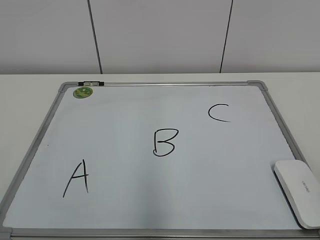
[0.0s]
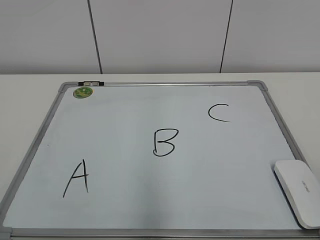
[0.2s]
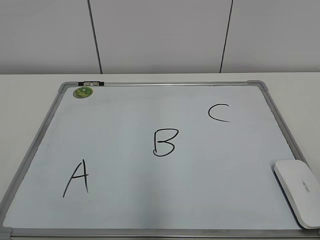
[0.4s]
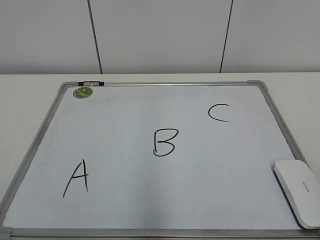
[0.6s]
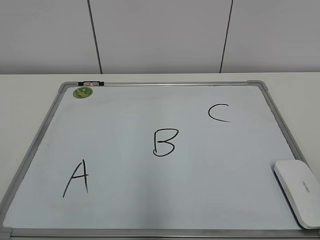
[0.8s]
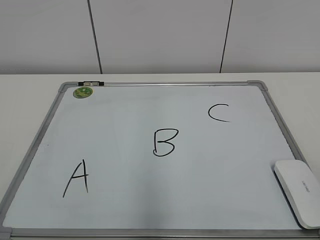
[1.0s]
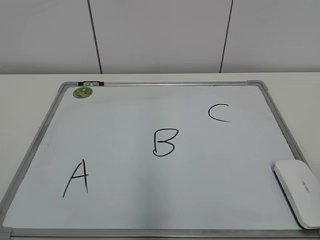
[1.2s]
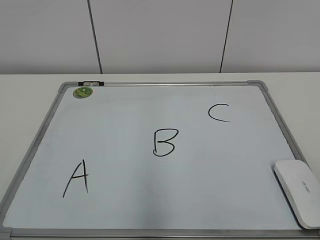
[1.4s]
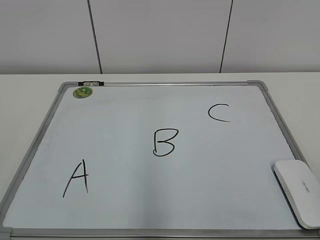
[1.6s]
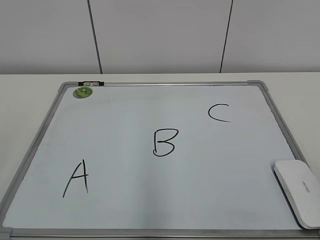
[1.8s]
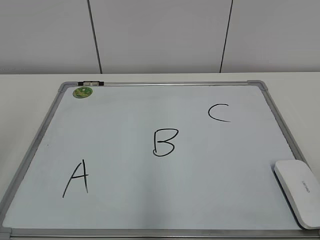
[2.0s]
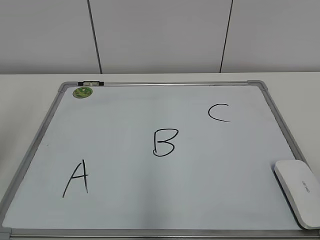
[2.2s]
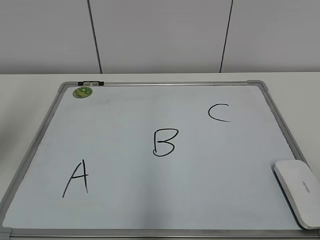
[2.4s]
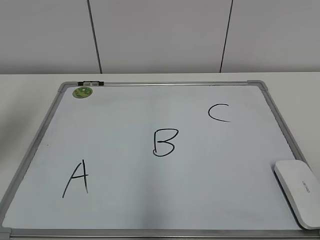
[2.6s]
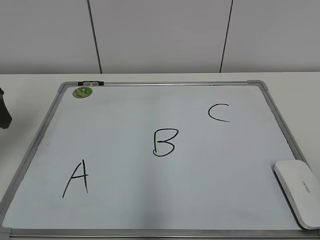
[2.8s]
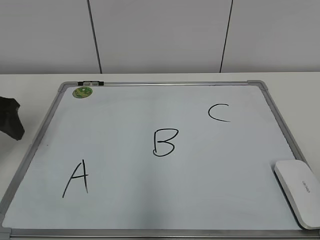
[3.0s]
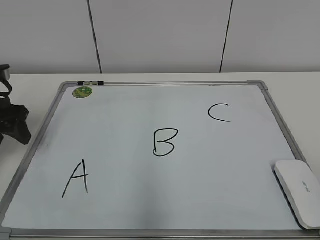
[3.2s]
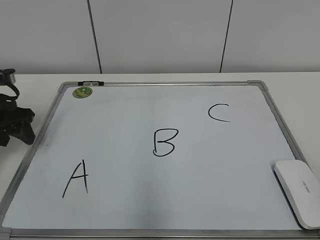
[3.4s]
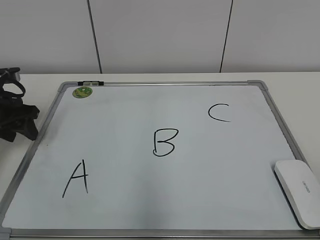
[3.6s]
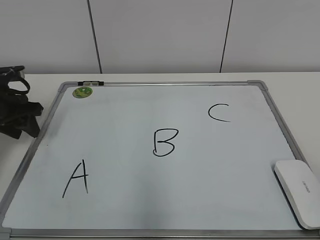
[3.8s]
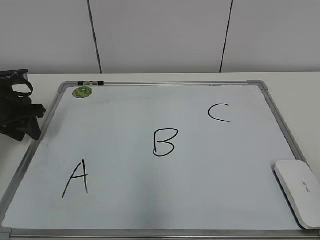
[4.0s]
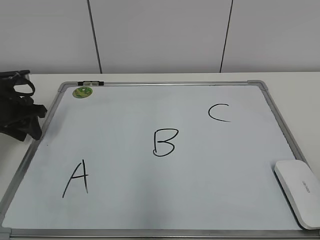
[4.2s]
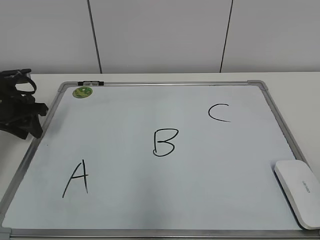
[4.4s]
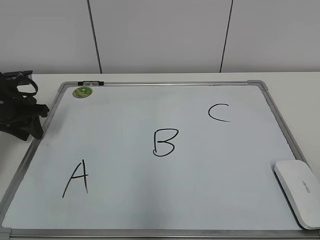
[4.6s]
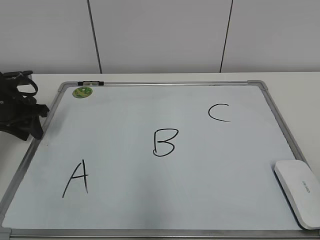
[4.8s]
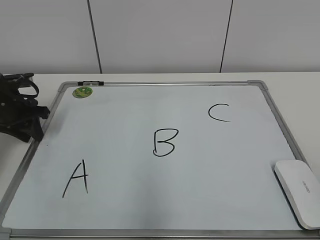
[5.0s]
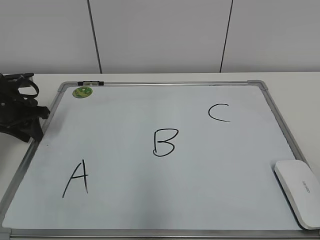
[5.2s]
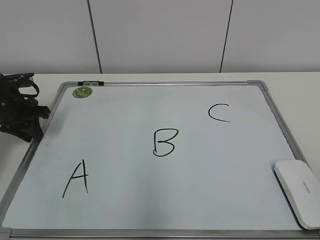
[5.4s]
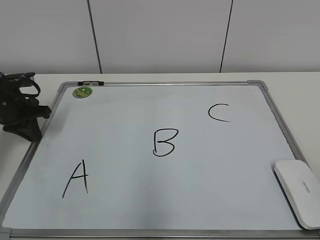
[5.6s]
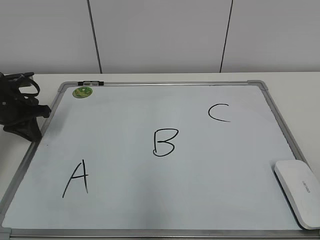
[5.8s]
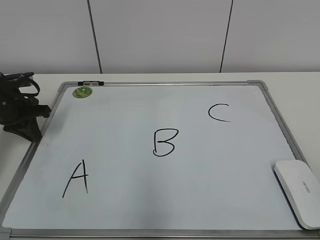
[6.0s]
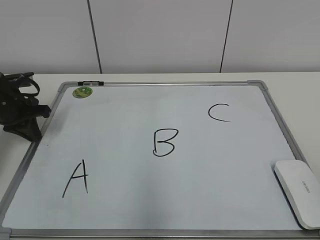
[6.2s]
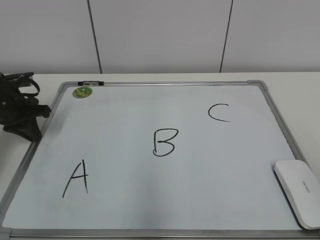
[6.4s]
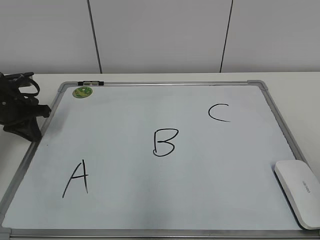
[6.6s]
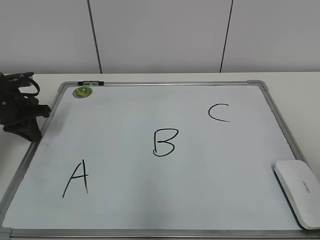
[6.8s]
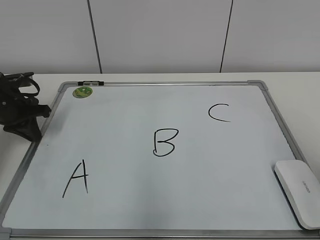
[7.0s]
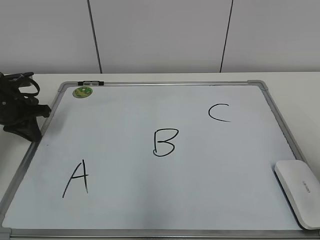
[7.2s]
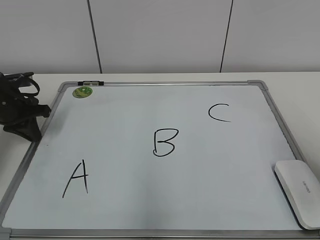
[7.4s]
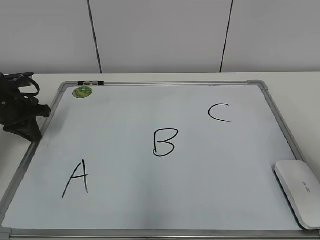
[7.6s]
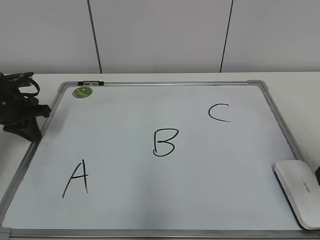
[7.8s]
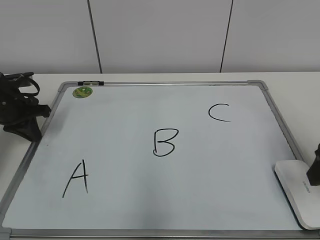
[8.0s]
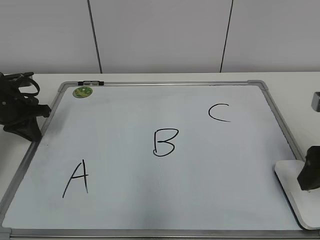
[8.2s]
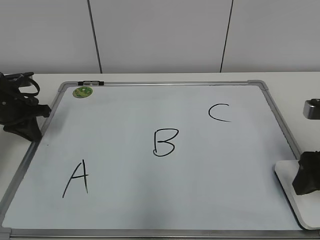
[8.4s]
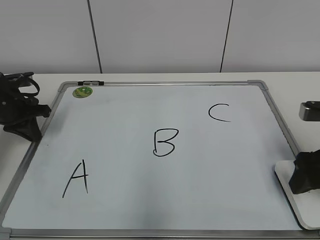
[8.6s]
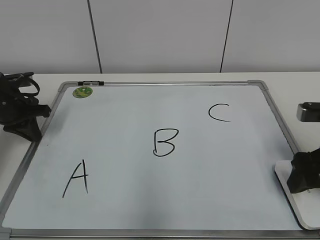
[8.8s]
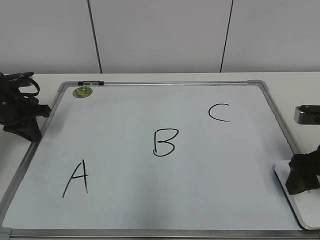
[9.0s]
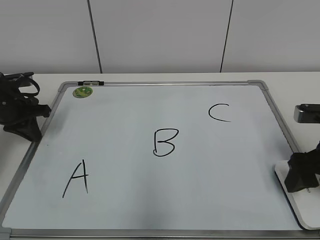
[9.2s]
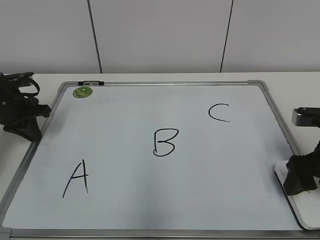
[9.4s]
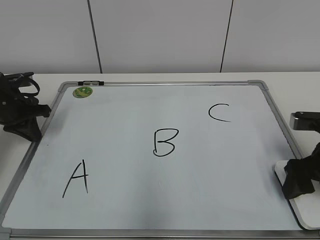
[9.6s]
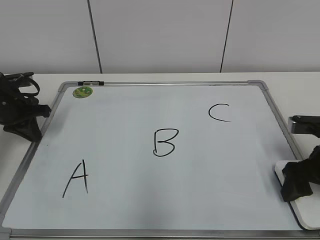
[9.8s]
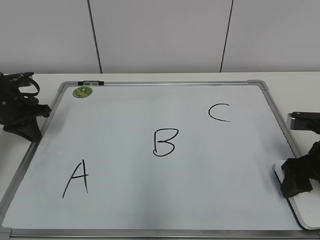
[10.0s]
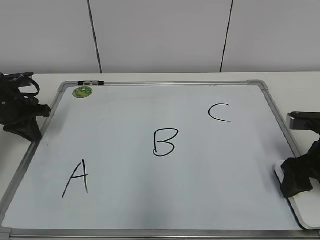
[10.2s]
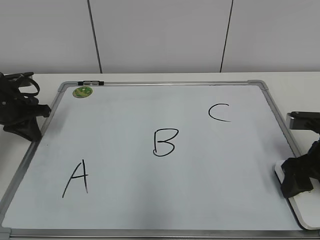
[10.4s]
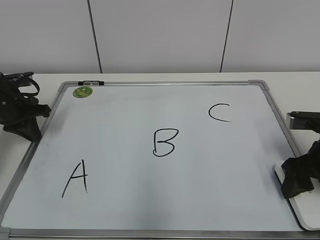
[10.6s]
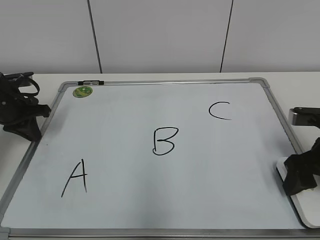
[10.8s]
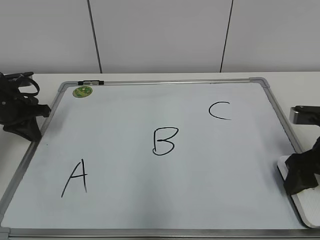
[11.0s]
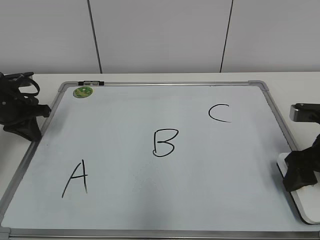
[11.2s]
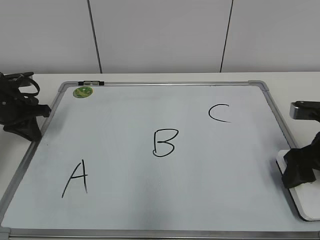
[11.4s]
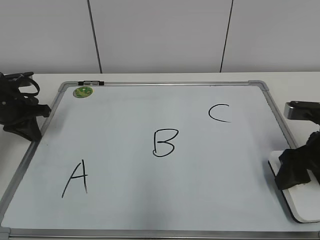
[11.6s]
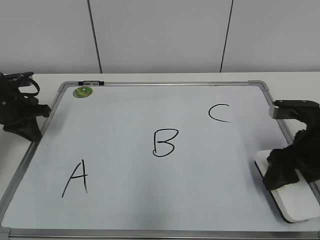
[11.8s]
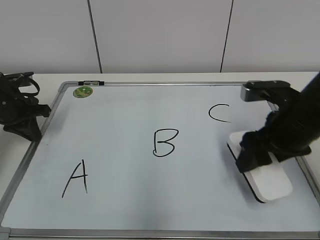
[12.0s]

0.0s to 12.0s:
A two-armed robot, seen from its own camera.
Task of the whole recording: pick up the eraser on the blackboard and erase the letter "B".
Step, 0.0s to 6.2s: Hold the drawing board steady with your left hand.
Step, 6.4s to 9.6s: Grab the eraser with your right hand.
1.6s to 3.0s: The left gripper shifts approximately 30 cm forward.
3.0s to 4.4s: The left gripper shifts about 10 cm forward and downward, and closes up.
4.4s to 6.0s: The left gripper closes.
6.0s to 7.6s: The right gripper is displaced forward by roughly 20 cm.
7.6s to 9.0s: The right gripper moves downward and forward, approximately 10 cm.
9.0s to 10.4s: The grippers stay close to where they were, moving slightly.
10.4s to 12.0s: The right gripper goes about 5 cm to the left.

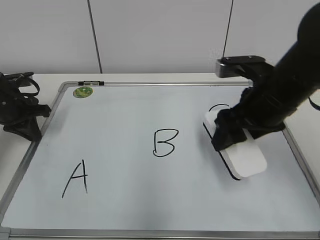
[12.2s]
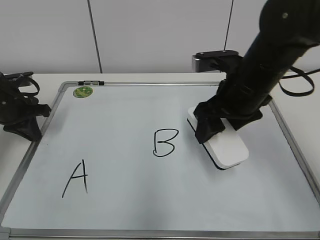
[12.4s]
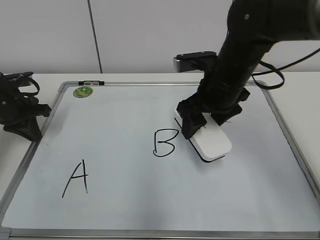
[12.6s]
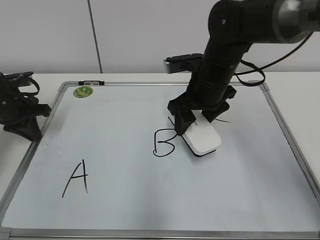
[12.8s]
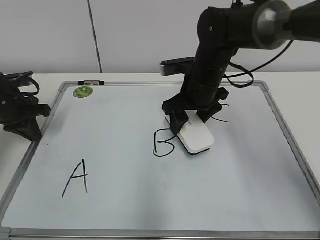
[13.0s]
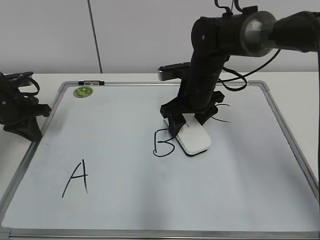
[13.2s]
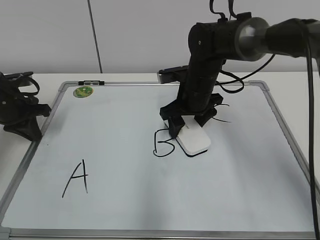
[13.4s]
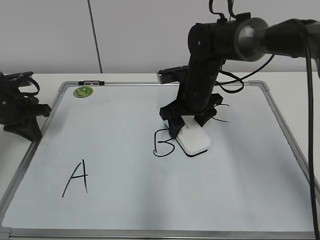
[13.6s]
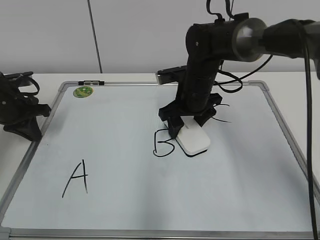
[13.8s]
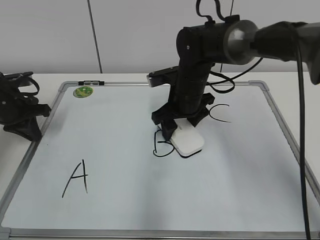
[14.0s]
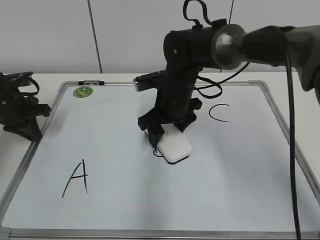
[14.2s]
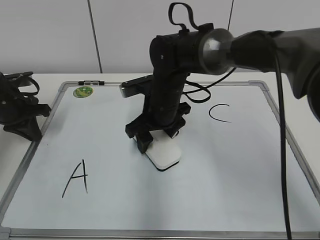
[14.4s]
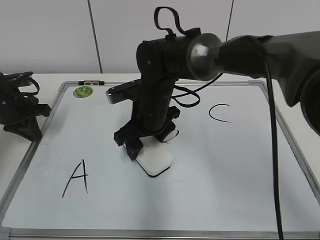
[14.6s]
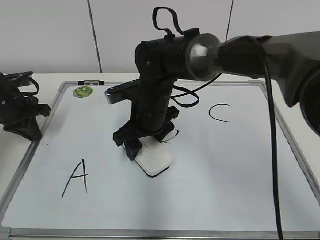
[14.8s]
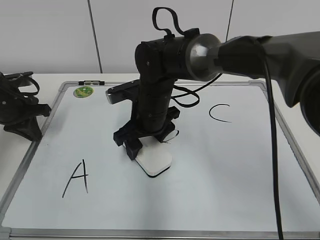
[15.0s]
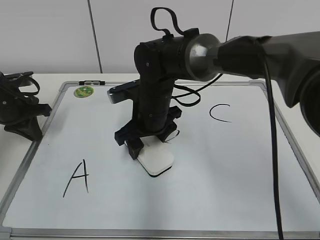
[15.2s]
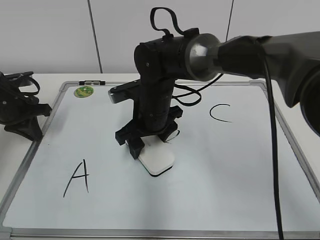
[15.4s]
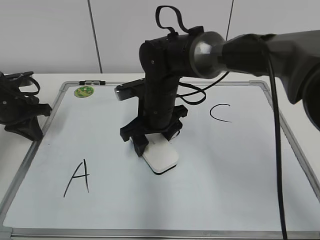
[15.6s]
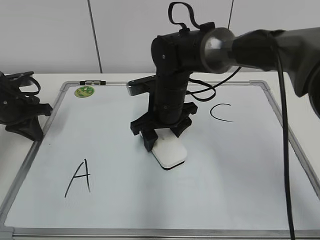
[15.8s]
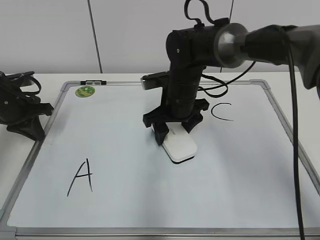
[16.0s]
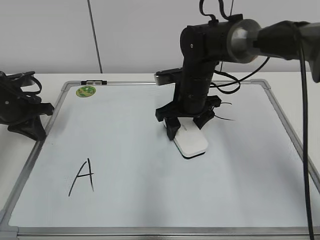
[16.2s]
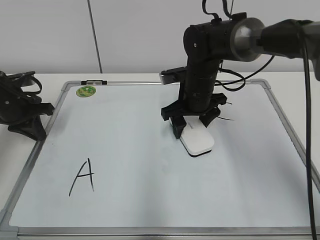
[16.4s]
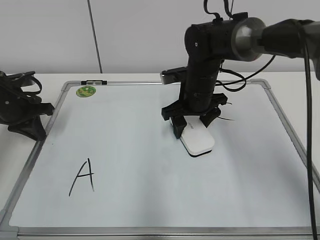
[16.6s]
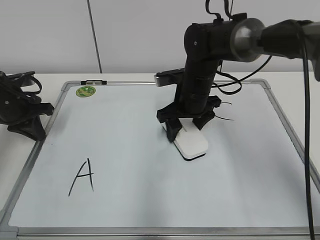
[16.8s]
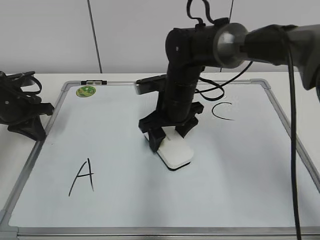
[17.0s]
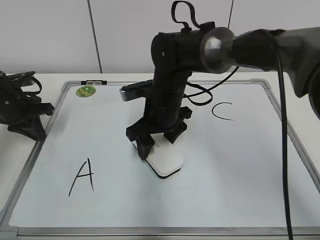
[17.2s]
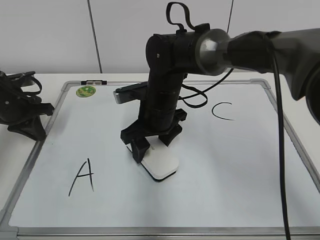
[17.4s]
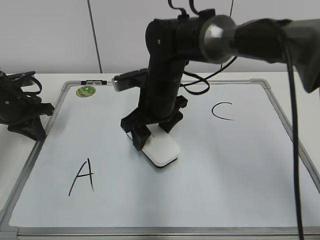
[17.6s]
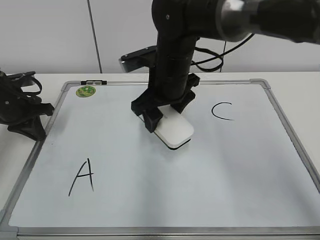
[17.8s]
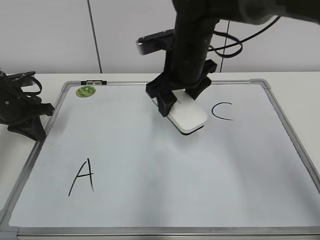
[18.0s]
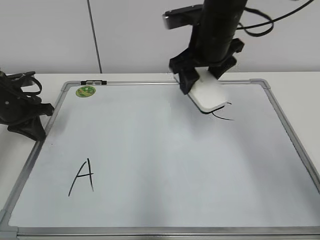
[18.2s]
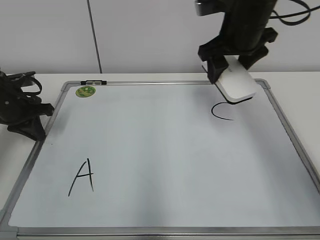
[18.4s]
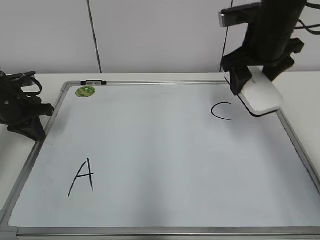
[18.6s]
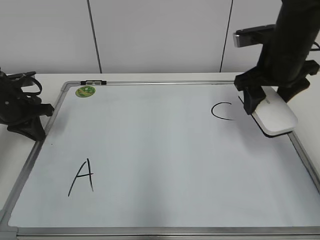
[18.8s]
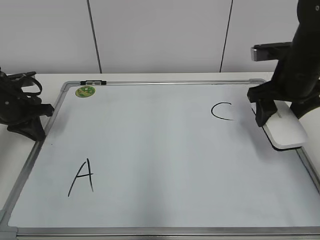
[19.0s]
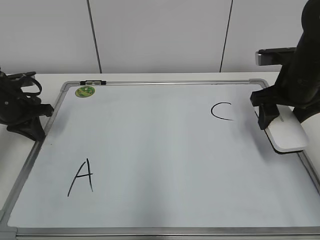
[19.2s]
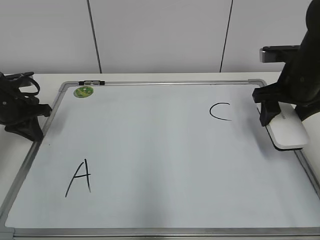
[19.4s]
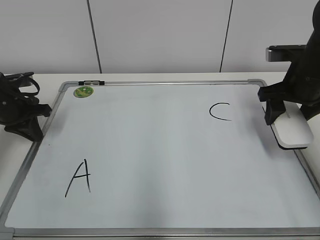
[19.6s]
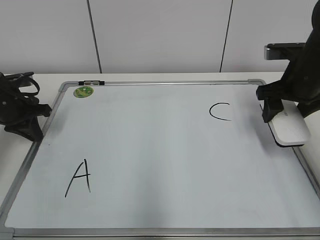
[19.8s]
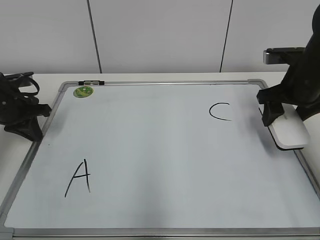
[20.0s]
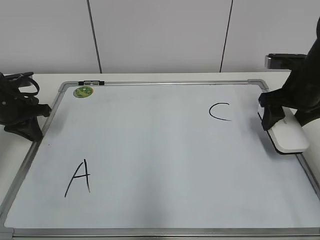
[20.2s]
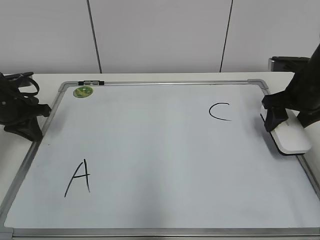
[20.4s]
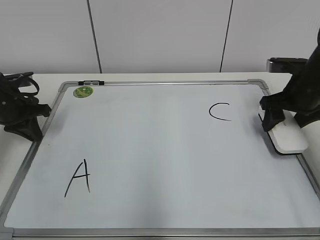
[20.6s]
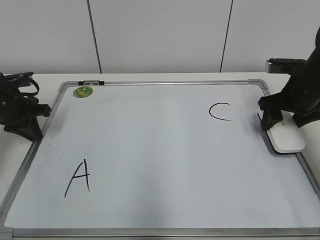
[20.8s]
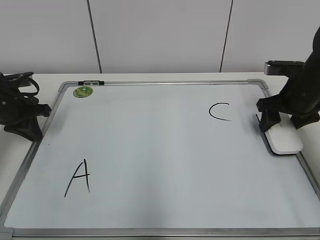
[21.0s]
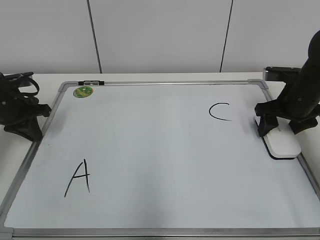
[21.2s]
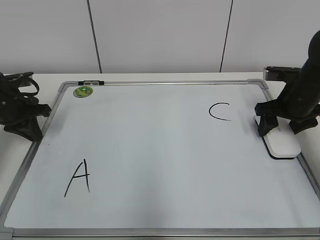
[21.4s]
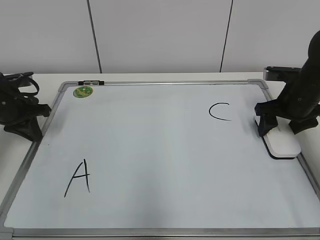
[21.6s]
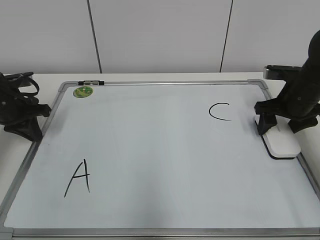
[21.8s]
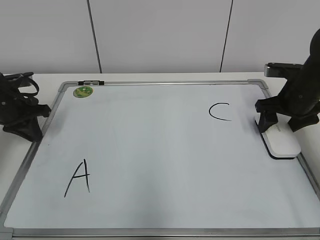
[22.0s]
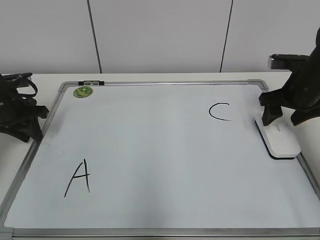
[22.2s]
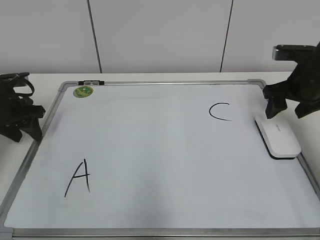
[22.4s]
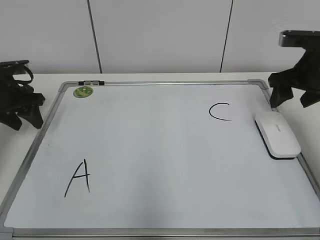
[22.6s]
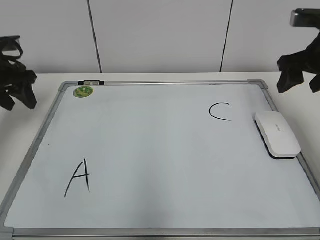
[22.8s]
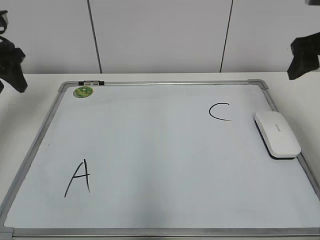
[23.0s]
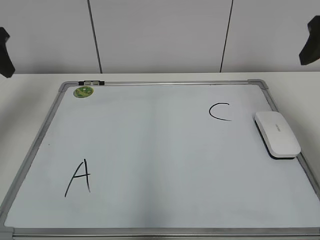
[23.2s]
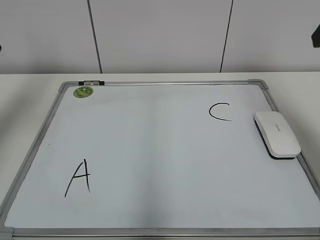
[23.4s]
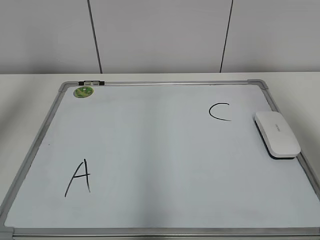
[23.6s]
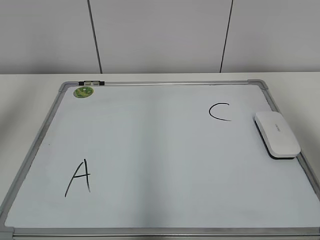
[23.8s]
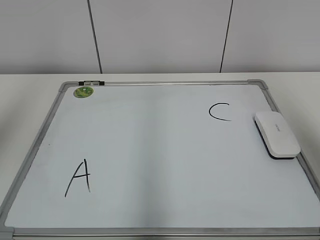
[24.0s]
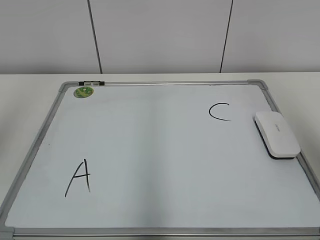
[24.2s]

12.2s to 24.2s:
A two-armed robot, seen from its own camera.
Task of the whole recording: pick up the eraser on the blackboard and erase the letter "B".
Step, 12.2s to 16.8s: Erase the letter B with your right hand.
Step, 17.0s to 21.6s: Put down the eraser with your right hand.
12.2s to 13.8s: The right gripper goes some 15 cm forward, to the left and downward.
13.8s to 15.2s: The right gripper heads to the left, covering some 10 cm.
15.2s to 16.6s: The right gripper goes roughly 10 cm to the right.
16.6s to 18.2s: The right gripper shifts roughly 10 cm upward.
18.2s to 19.8s: The right gripper is displaced to the right by approximately 15 cm.
19.8s to 21.2s: The right gripper shifts roughly 5 cm downward.
21.2s to 22.6s: The right gripper travels upward by approximately 5 cm, while the left gripper opens.
22.6s to 24.2s: The left gripper shifts some 40 cm upward and backward, while the right gripper moves backward and upward, about 30 cm.
